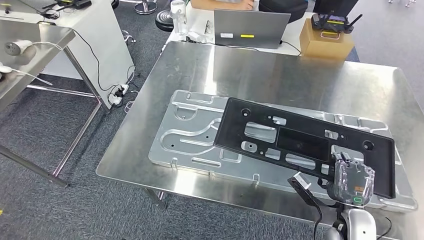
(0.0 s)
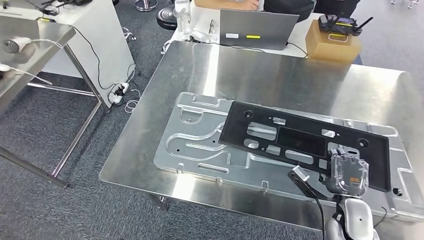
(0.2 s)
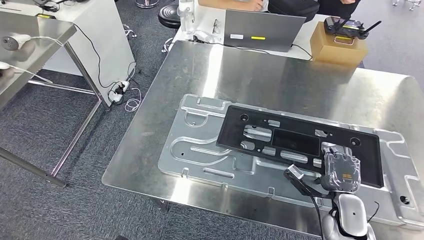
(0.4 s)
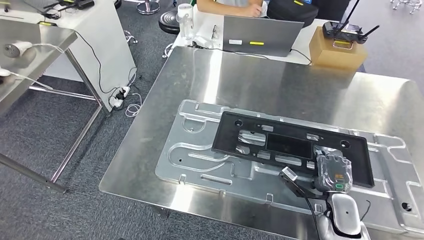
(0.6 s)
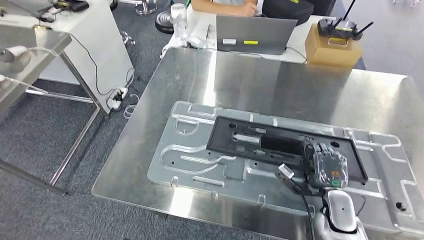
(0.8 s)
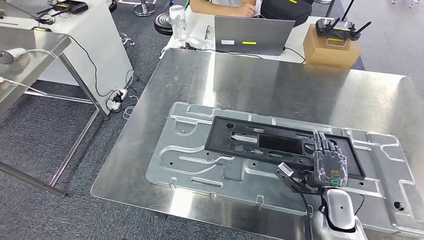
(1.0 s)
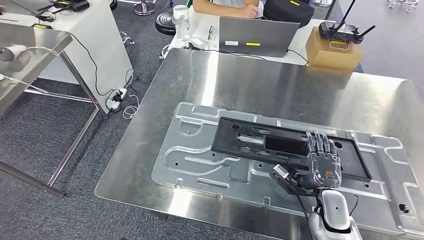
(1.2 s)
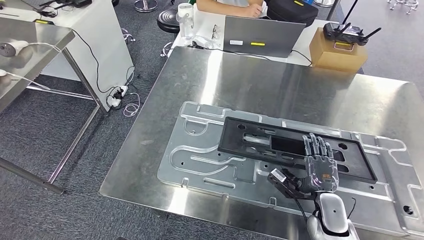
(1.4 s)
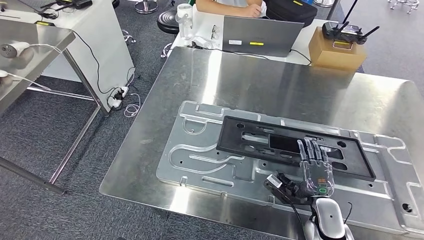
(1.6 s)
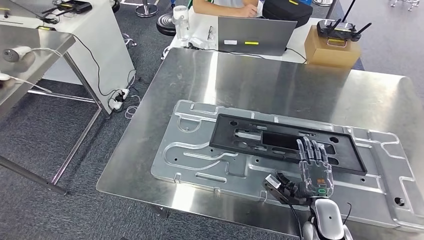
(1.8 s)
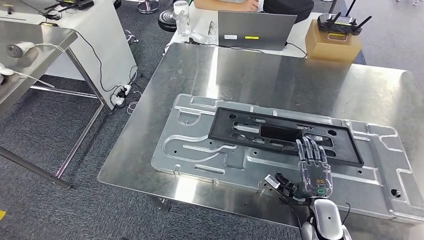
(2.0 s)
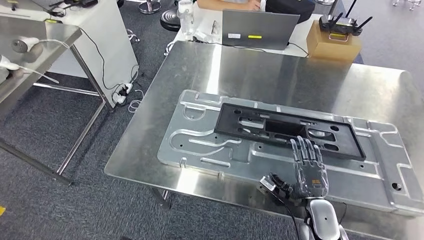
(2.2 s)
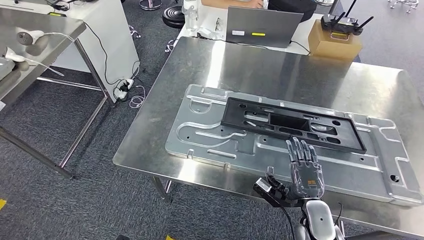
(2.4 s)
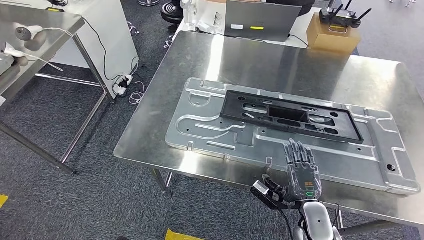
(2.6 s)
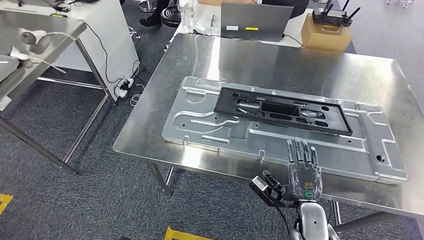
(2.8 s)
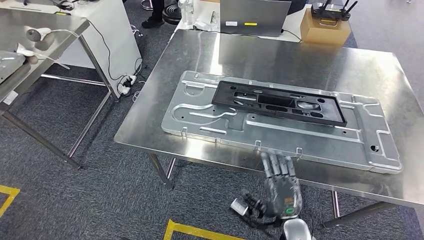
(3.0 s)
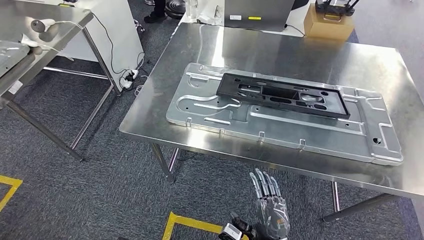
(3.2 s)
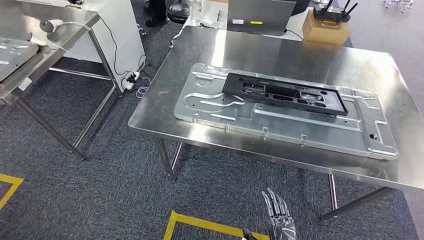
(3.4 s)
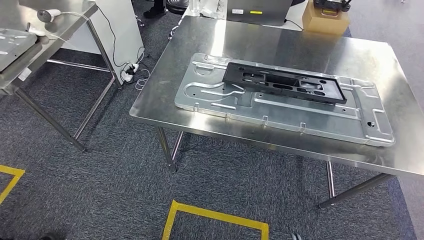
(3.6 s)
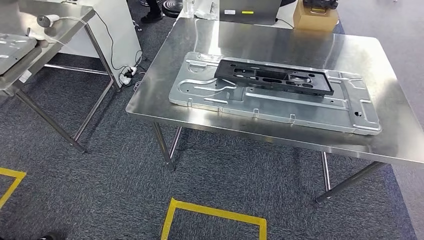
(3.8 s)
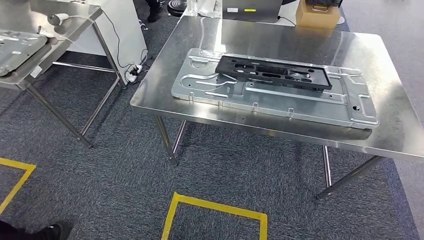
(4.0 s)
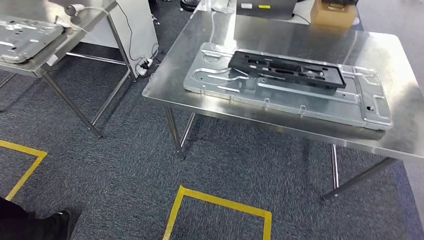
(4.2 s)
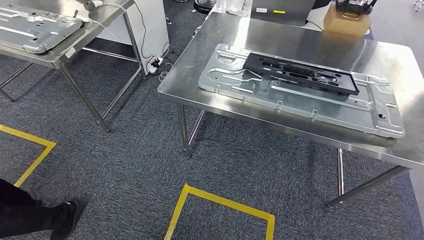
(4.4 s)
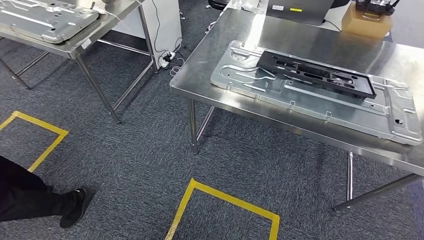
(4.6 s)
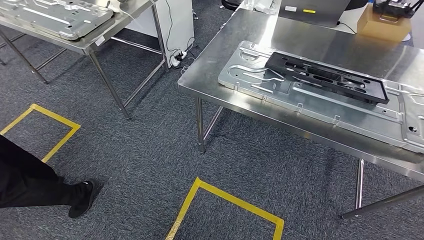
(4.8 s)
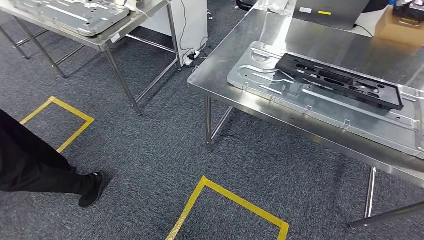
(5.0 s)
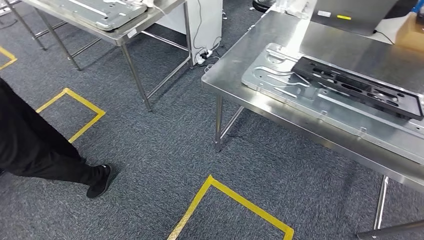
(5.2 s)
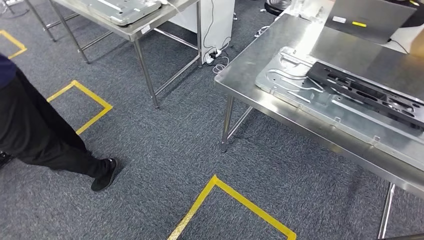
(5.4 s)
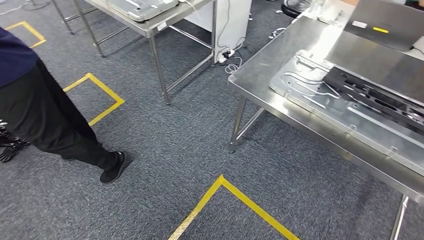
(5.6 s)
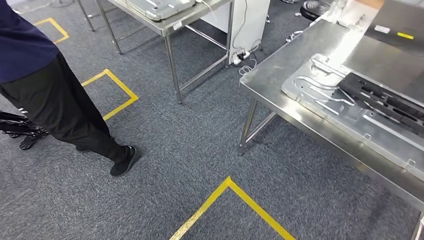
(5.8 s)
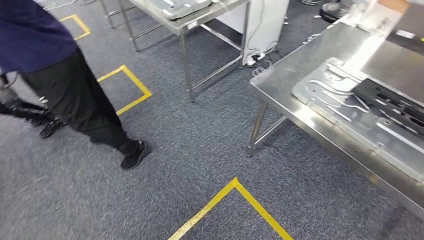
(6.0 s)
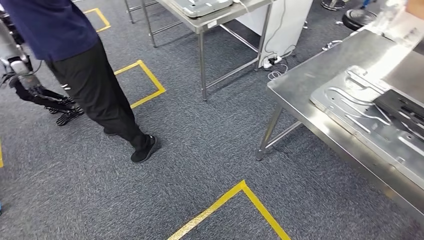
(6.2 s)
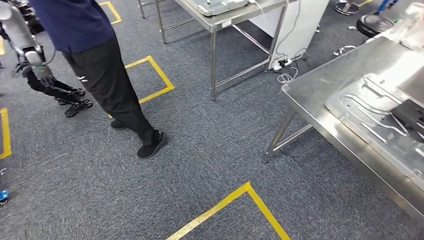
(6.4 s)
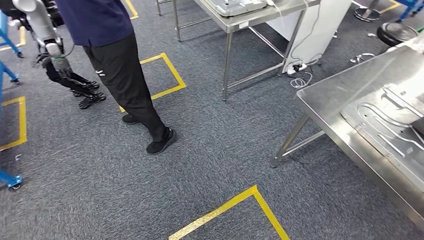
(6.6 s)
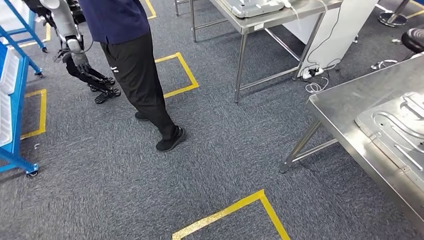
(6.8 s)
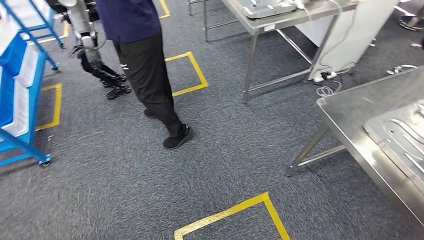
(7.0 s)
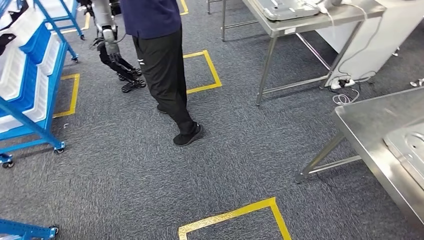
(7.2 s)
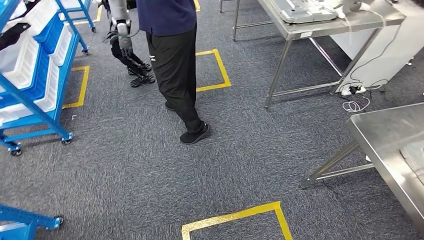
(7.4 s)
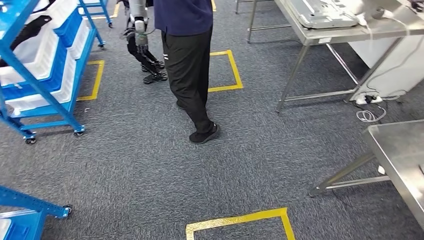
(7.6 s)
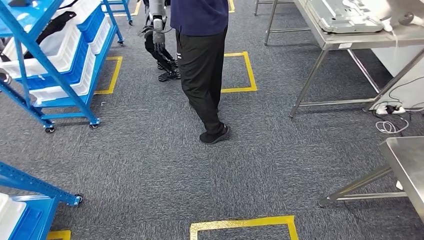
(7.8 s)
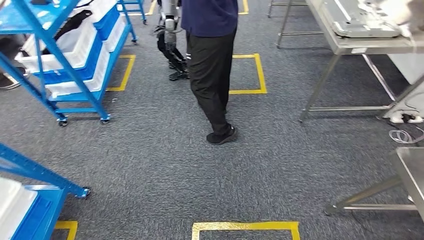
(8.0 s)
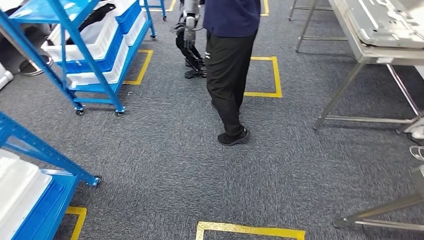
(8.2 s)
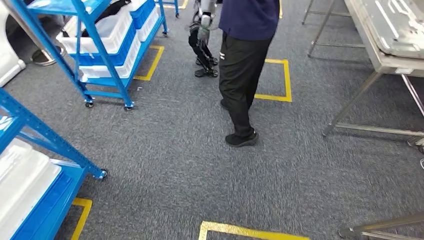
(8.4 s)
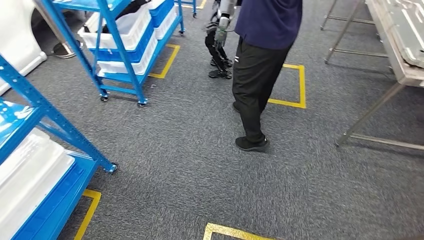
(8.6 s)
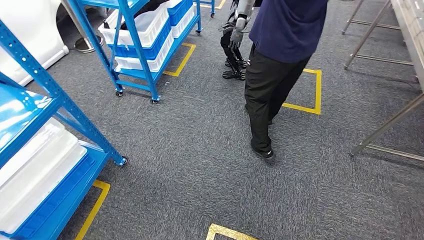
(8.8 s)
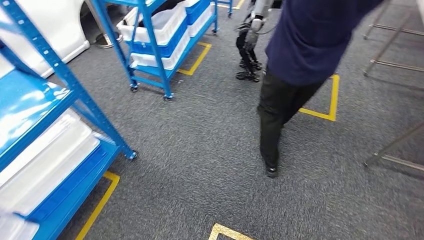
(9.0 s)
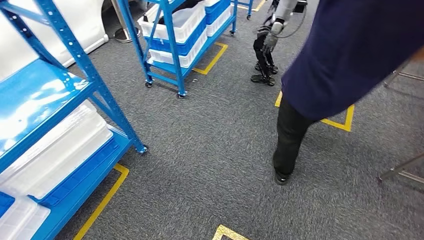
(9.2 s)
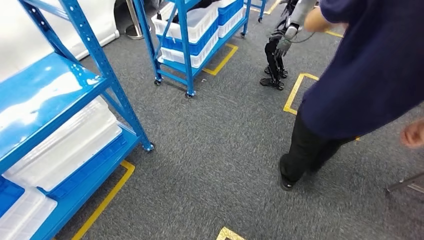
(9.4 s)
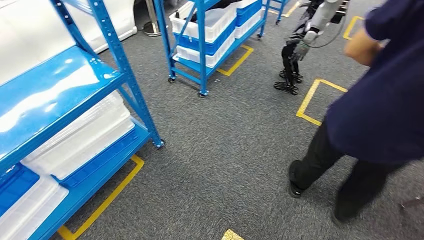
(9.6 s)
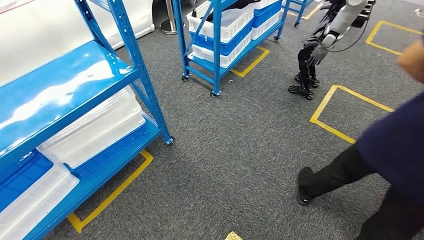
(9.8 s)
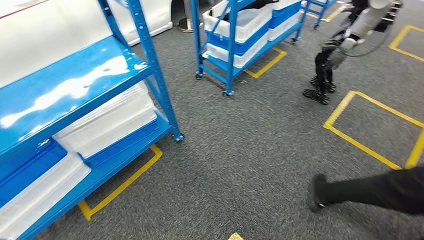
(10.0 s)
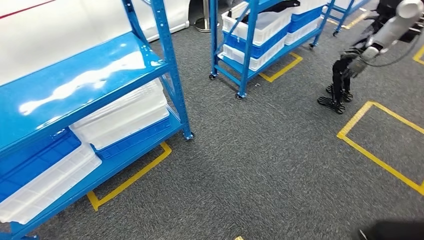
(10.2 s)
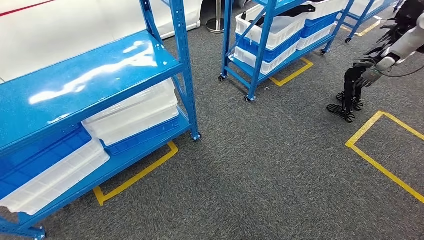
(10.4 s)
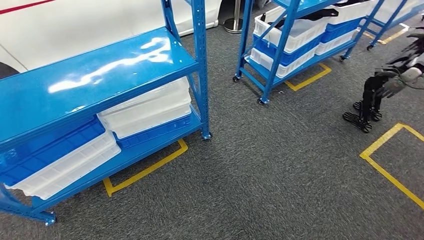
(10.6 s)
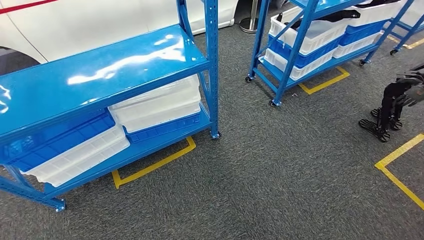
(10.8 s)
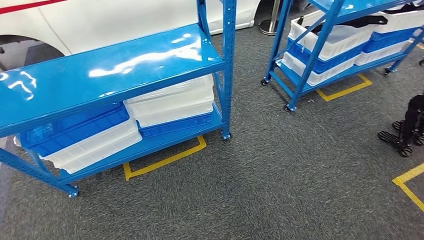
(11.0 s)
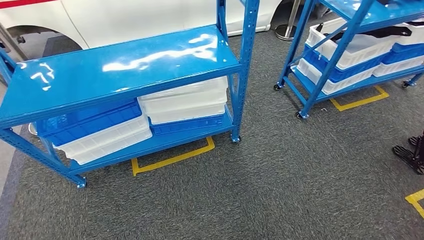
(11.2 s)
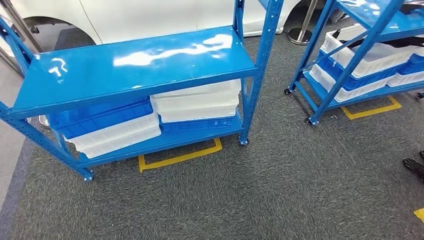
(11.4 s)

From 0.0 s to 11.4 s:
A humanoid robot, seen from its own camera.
Step, from 0.0 s to 3.6 s: Insert the large material into the corresponding slot on the workbench.

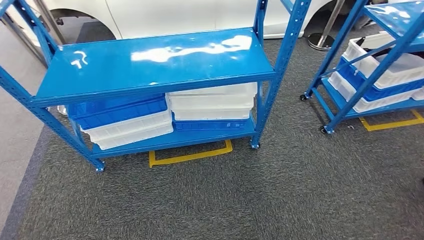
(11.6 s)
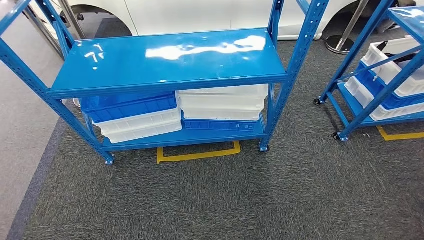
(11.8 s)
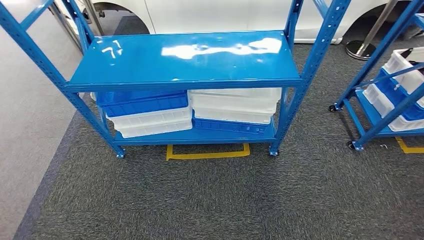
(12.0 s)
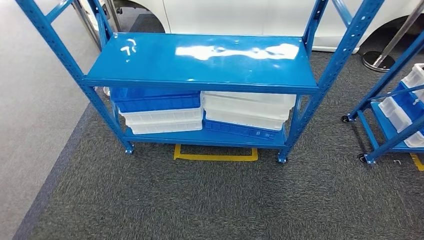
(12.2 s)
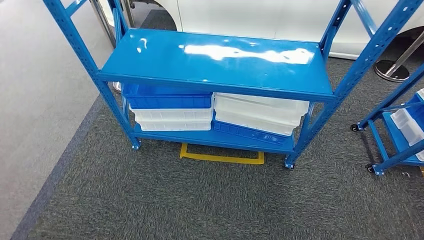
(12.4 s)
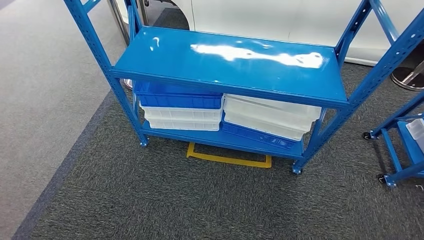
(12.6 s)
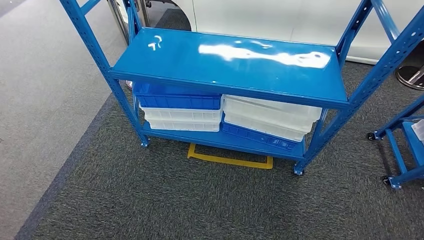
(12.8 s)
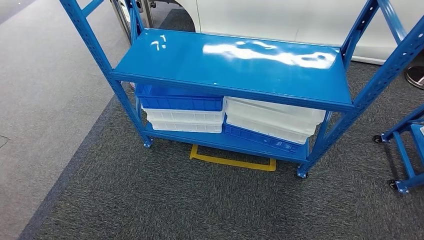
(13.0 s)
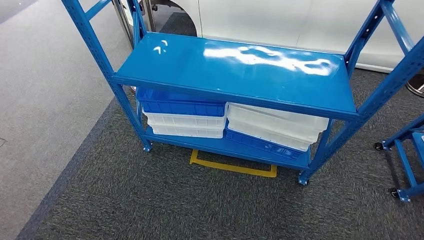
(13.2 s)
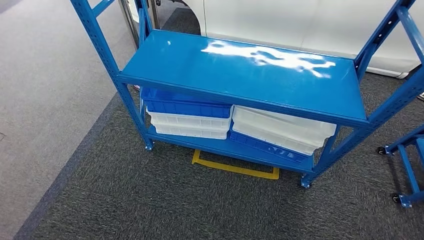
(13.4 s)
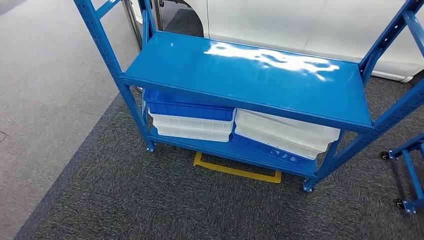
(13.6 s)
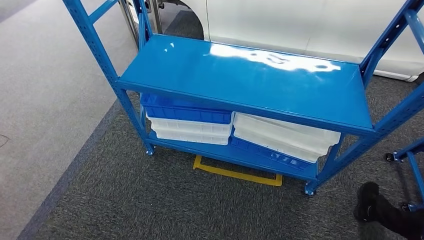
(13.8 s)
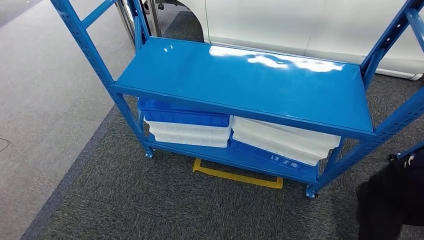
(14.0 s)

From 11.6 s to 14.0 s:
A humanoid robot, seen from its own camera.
Step, from 11.6 s to 14.0 s: Return to the initial position at the shelf.
